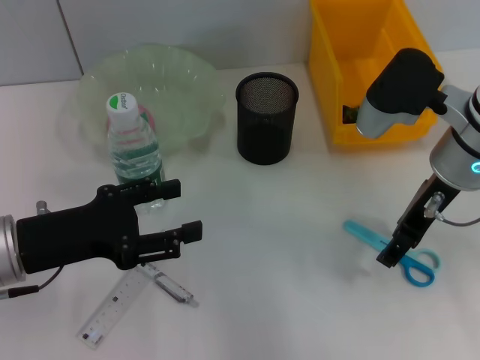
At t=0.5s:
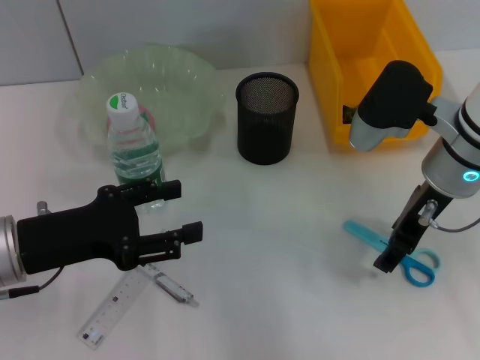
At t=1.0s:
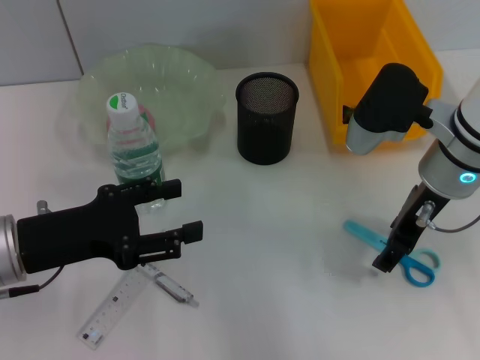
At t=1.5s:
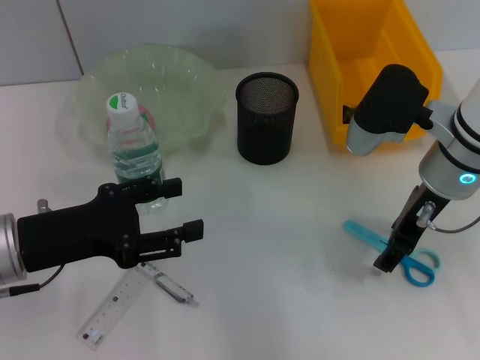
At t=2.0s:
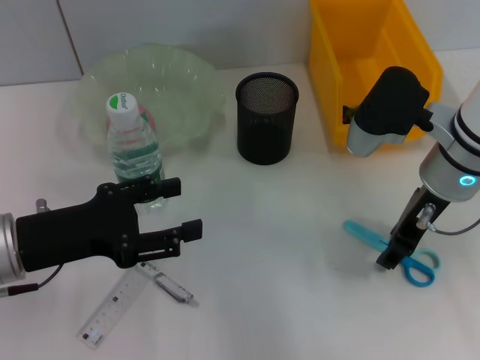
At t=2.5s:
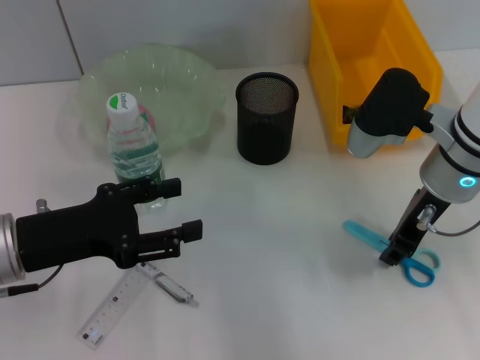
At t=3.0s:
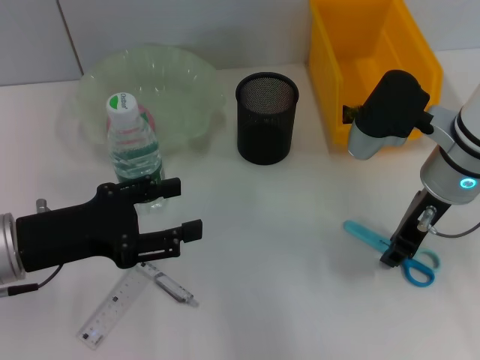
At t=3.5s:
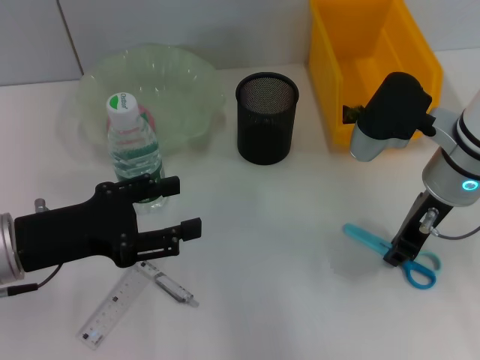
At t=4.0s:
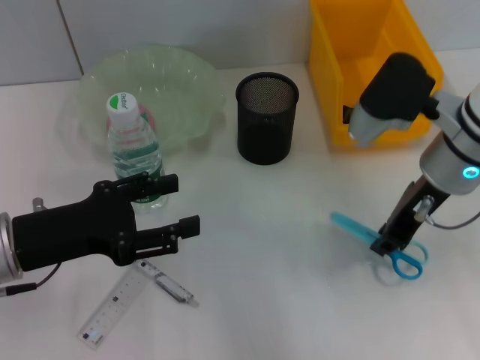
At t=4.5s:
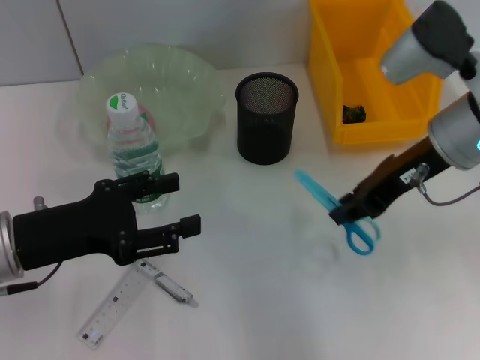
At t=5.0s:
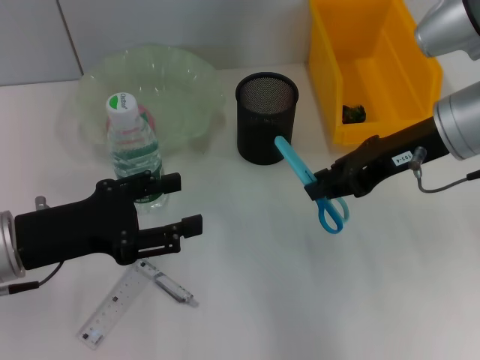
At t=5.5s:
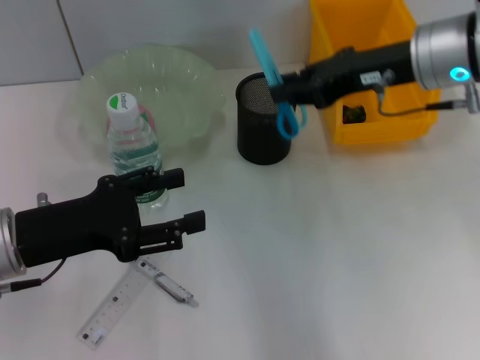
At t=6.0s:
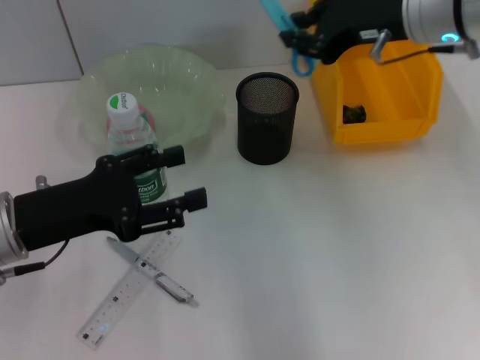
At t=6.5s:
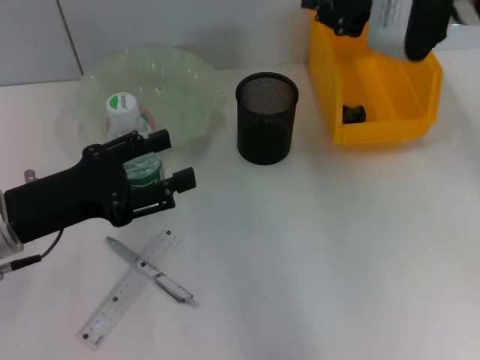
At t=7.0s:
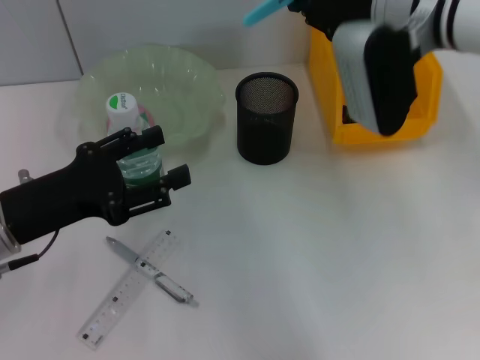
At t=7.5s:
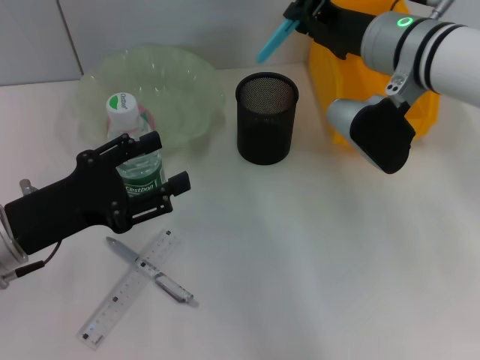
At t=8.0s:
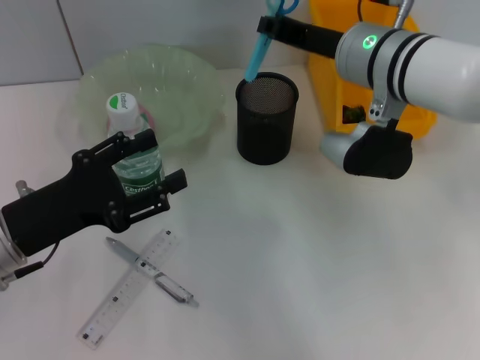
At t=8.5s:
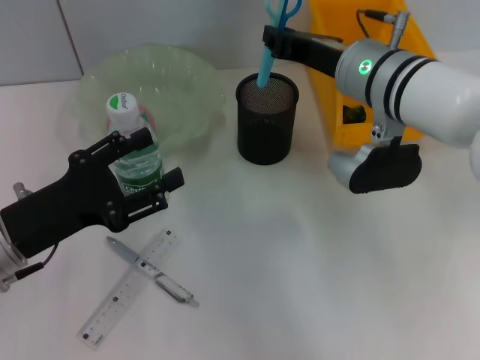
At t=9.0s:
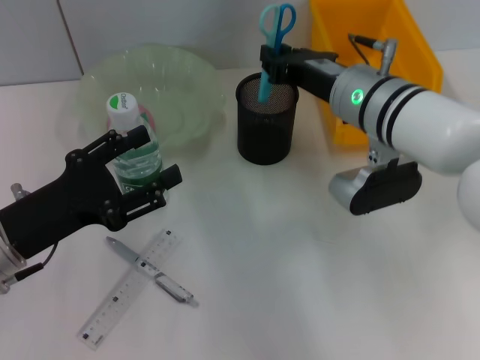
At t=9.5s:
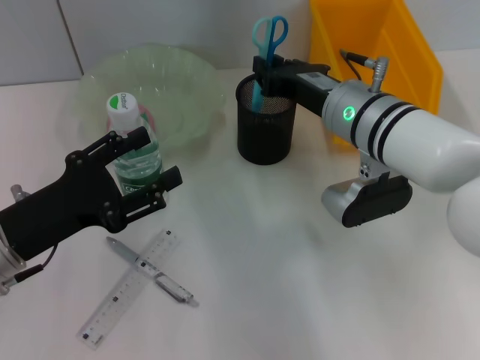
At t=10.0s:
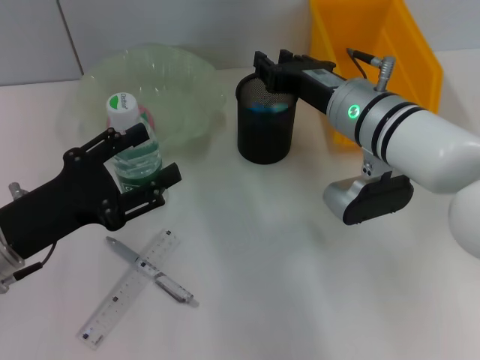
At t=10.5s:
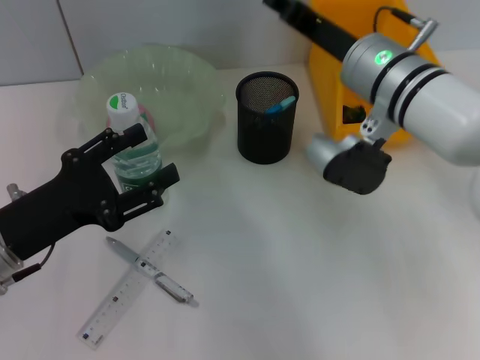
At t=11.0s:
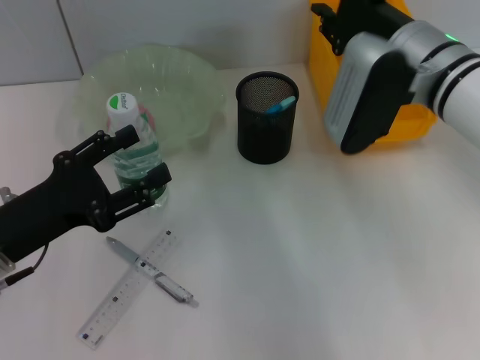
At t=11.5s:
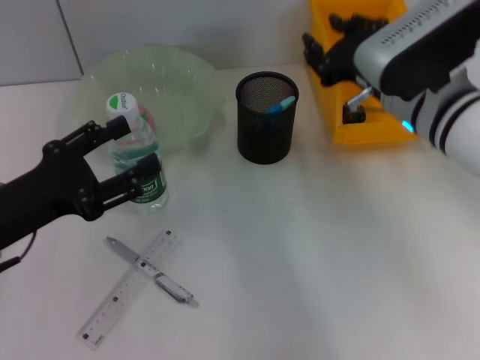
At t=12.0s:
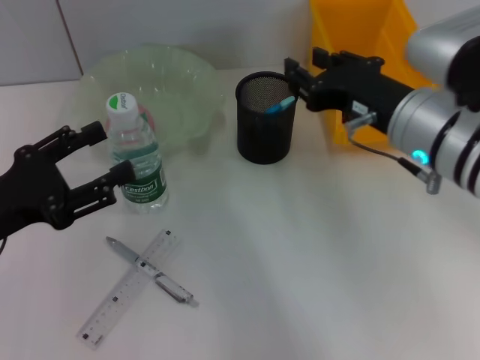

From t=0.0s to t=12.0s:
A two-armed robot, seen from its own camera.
Step, from t=0.0s to t=3.0s: Grab the blue scissors with the right hand.
Step, from t=3.5s to t=10.0s: Place the blue scissors into the pen holder with the right hand.
From t=0.0s to t=2.0s: The grippers stay close to where they were, moving slightly.
From t=2.0s to t=4.0s: The right gripper closes its fingers.
From t=4.0s to t=6.0s: The right gripper heads upward and forward, covering roughly 10 cm.
From t=6.0s to t=8.0s: The right gripper travels downward and to the left by approximately 10 cm.
From t=8.0s to t=10.0s: The right gripper is displaced downward by about 5 cm.
From t=10.0s to t=12.0s: The right gripper moves backward, approximately 5 cm.

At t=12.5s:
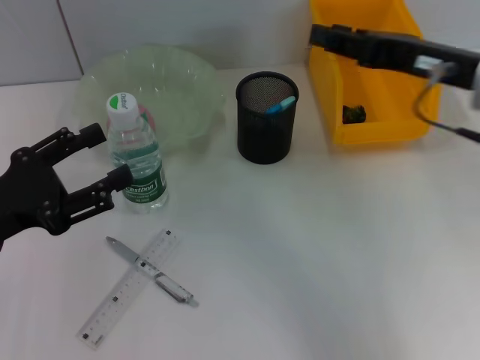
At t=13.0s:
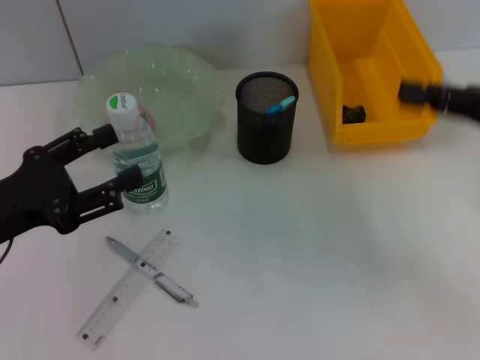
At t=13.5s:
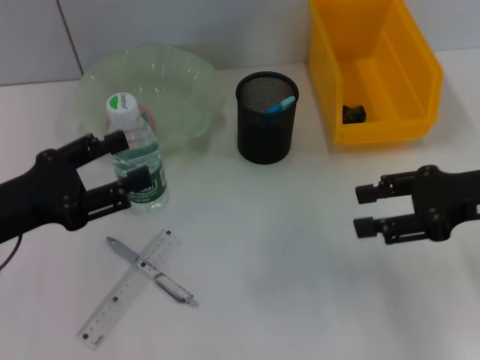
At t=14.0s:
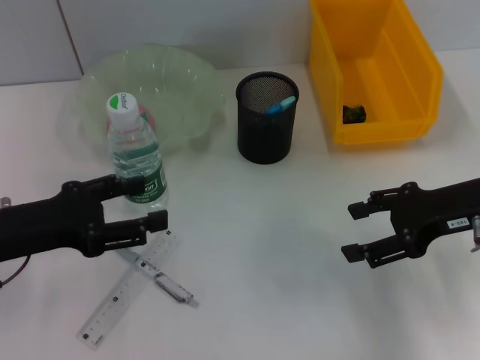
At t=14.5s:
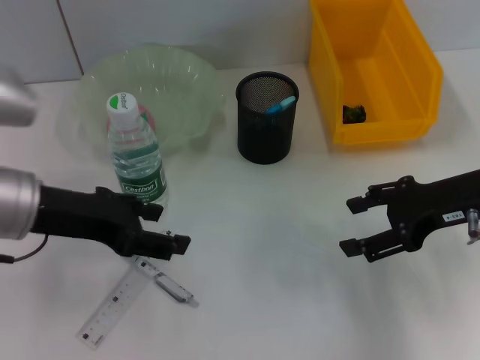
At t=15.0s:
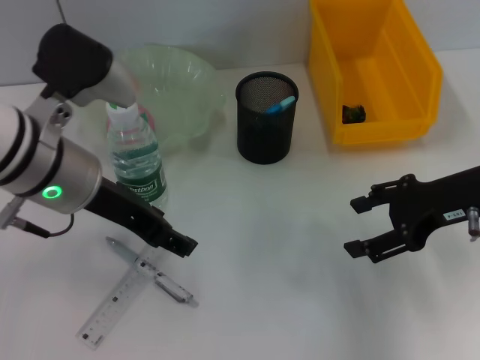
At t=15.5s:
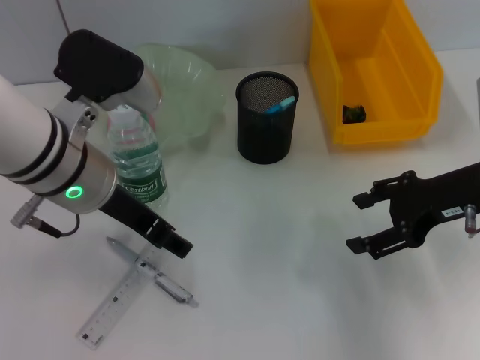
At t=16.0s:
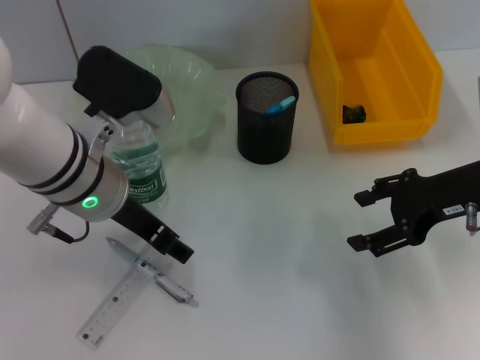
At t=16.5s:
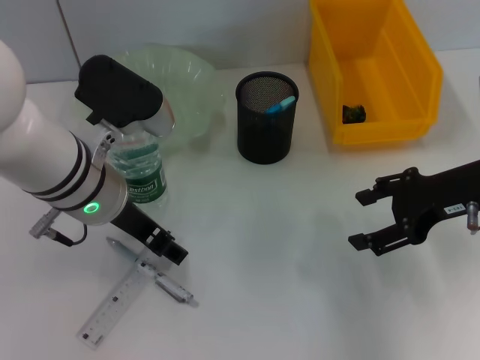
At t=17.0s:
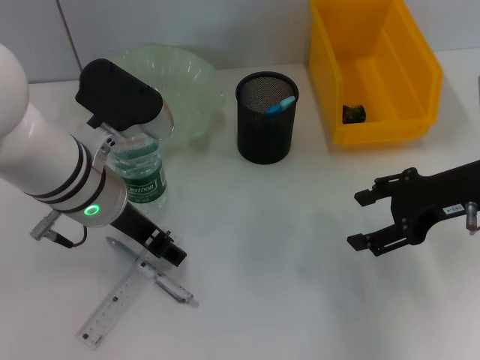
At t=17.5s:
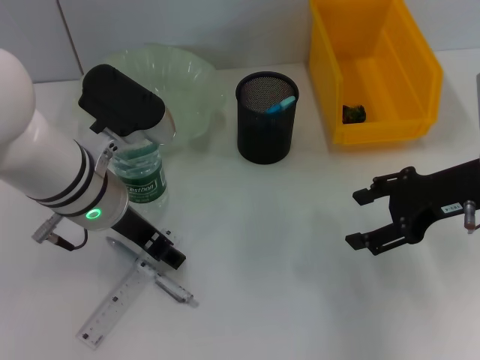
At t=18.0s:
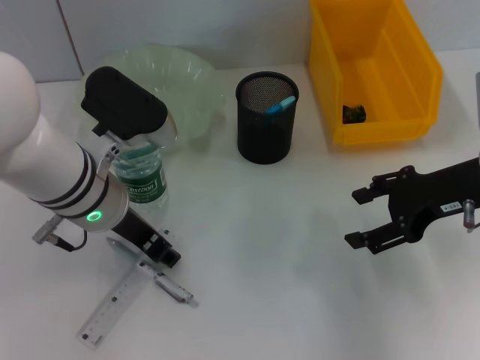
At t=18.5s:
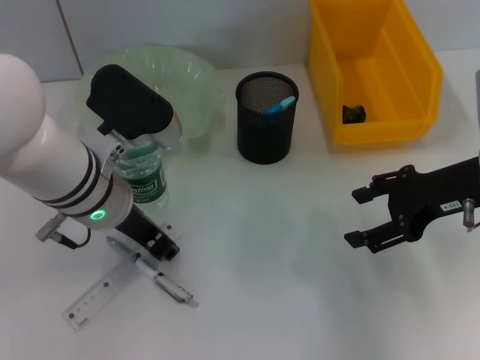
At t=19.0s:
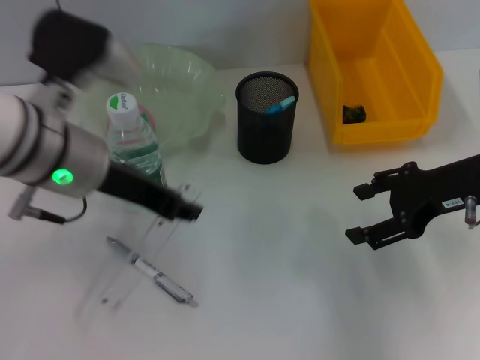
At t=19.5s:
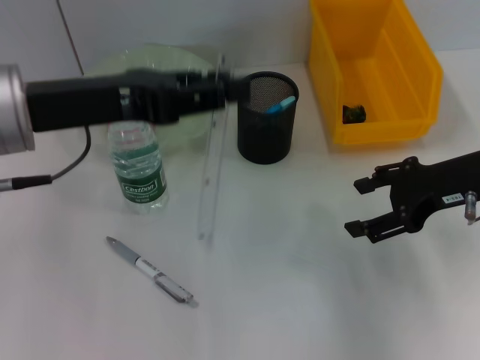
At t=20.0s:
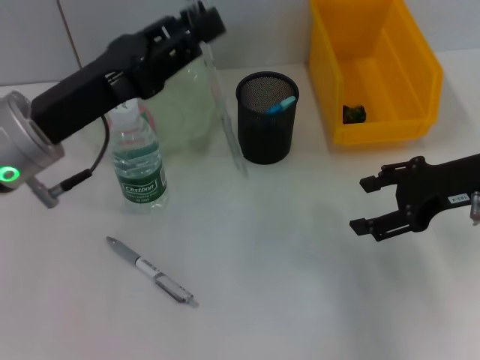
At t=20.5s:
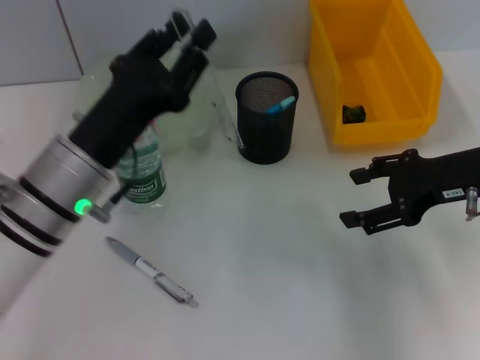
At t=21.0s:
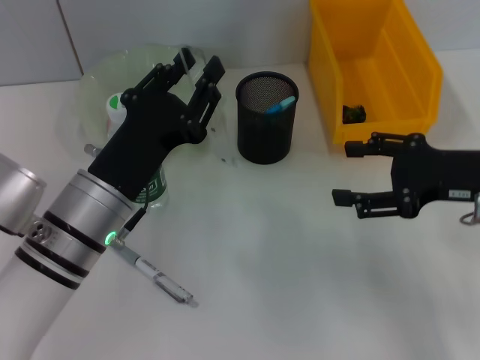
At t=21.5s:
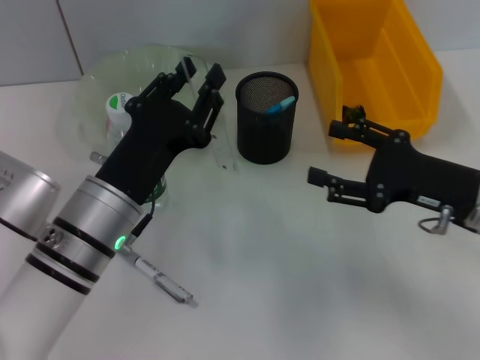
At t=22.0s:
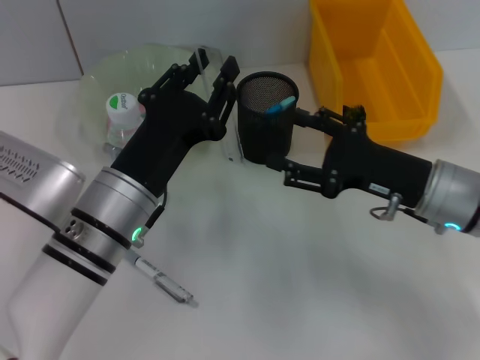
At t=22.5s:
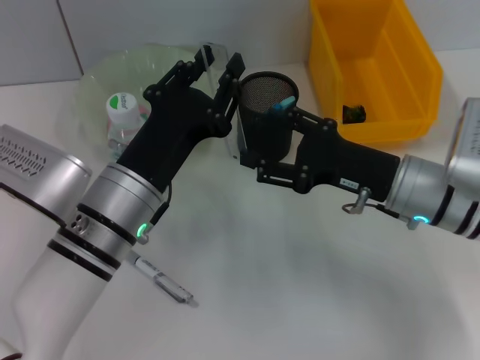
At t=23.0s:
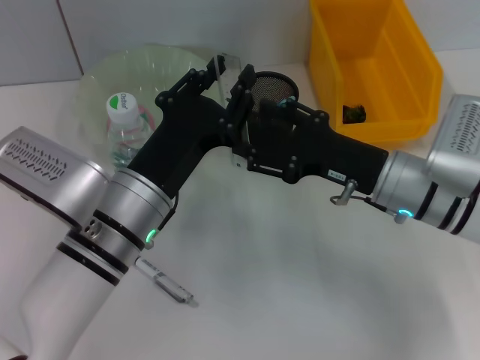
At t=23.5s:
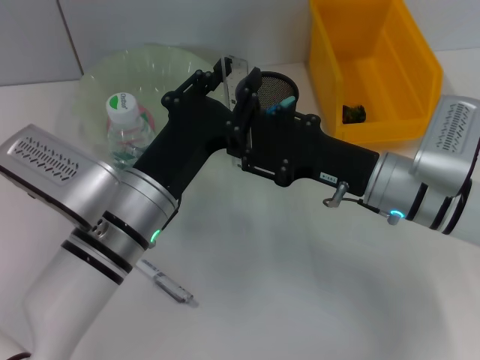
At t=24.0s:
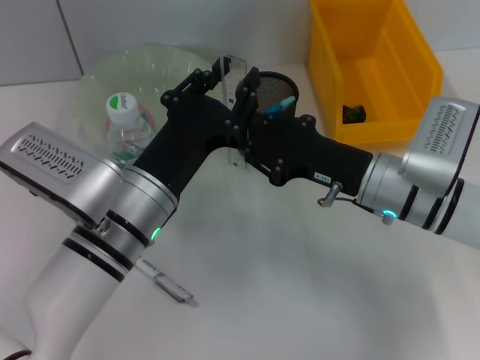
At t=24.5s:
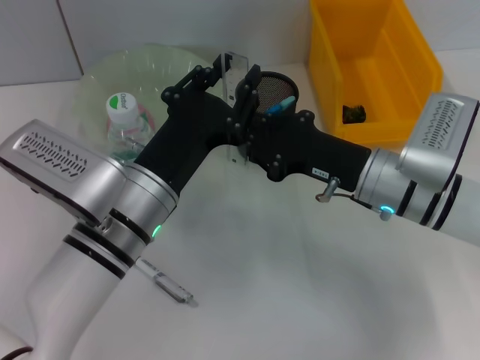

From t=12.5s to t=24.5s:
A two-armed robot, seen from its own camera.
Step, from t=12.5s to t=18.0s: Grab the ruler with the left hand.
From t=12.5s to t=14.5s: The left gripper moves to the right and upward, approximately 10 cm. Meanwhile the right gripper travels downward by approximately 10 cm, and opens.
From t=14.5s to t=16.5s: The left gripper shifts approximately 10 cm to the right.
From t=16.5s to t=18.5s: The left gripper closes its fingers.
From t=18.5s to t=20.5s: The left gripper reaches roughly 10 cm upward, then returns.
From t=20.5s to t=22.5s: The right gripper heads to the left and downward, covering about 10 cm, while the left gripper changes place by roughly 5 cm.
From t=22.5s to t=24.5s: The right gripper closes its fingers.

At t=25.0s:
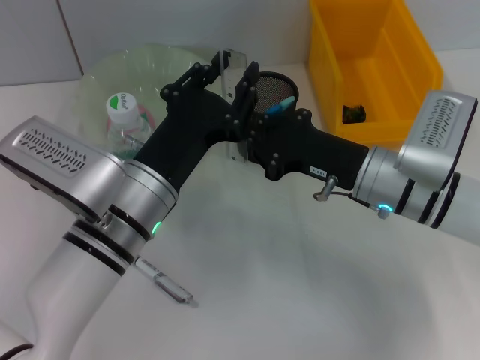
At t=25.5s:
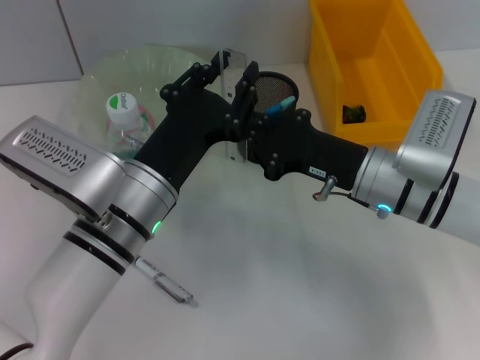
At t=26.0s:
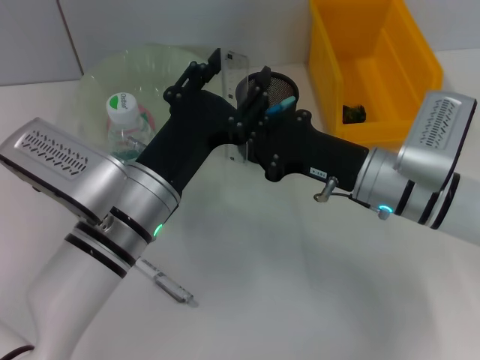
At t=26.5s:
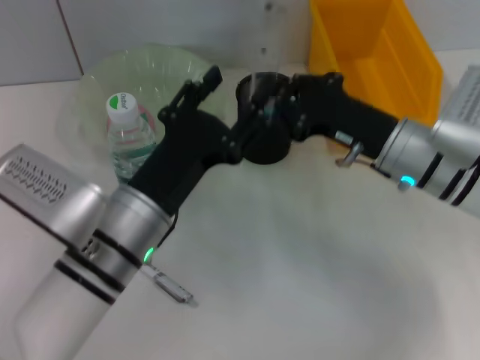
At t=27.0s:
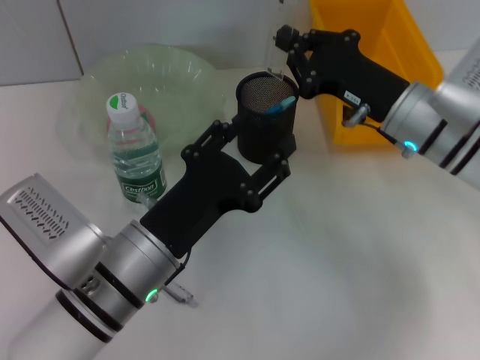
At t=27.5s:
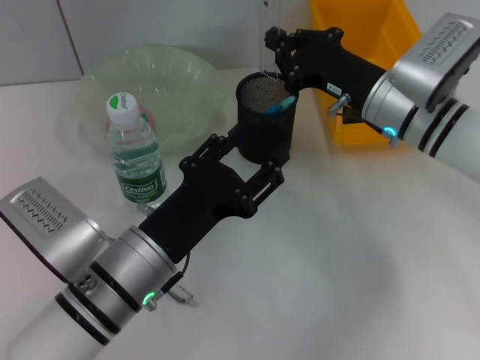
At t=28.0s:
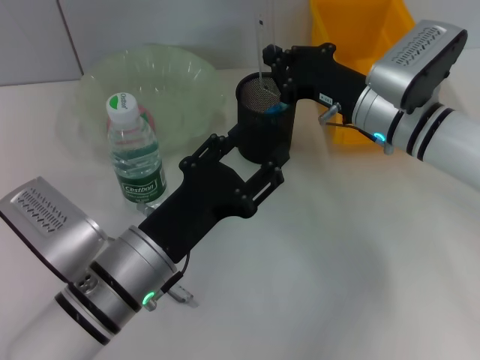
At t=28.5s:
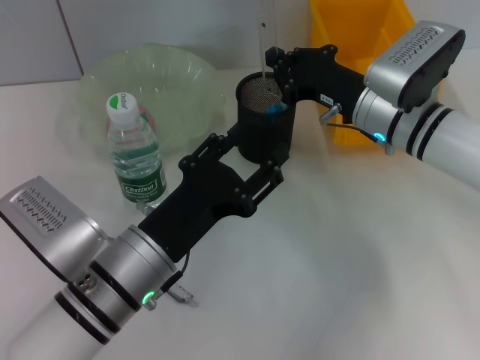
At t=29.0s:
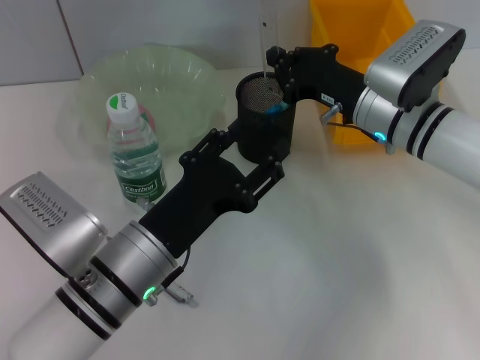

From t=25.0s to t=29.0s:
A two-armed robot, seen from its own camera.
From t=25.0s to t=27.0s: The left gripper opens up. Meanwhile the right gripper changes place by about 5 cm.
From t=27.0s to t=29.0s: There are only small adjustments of the grippers.
